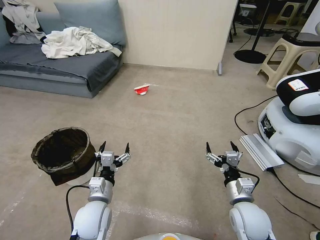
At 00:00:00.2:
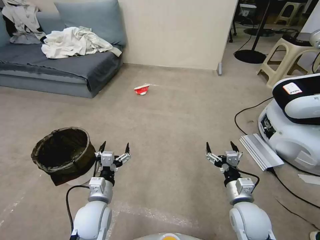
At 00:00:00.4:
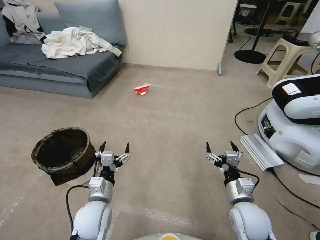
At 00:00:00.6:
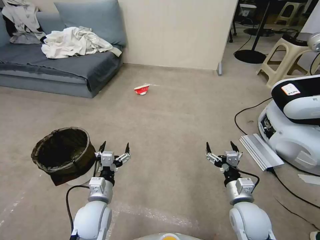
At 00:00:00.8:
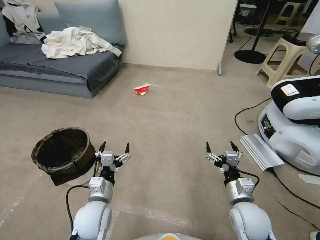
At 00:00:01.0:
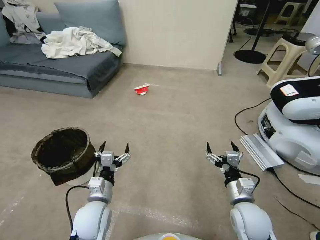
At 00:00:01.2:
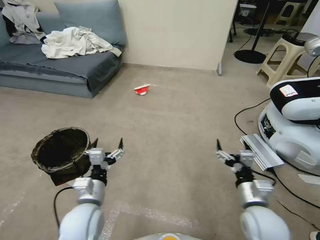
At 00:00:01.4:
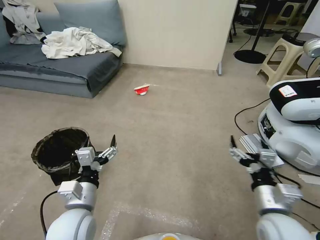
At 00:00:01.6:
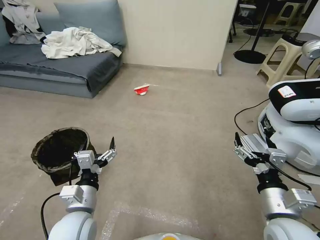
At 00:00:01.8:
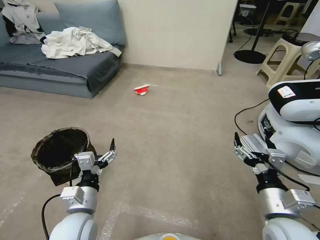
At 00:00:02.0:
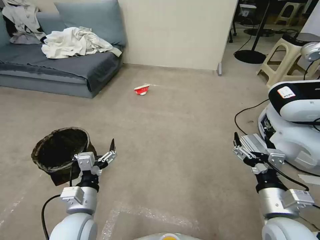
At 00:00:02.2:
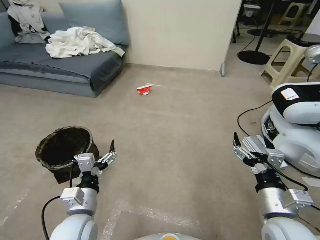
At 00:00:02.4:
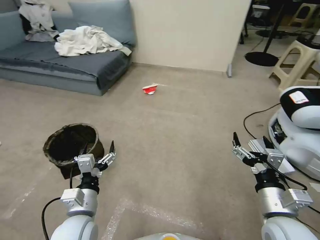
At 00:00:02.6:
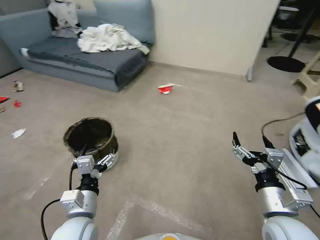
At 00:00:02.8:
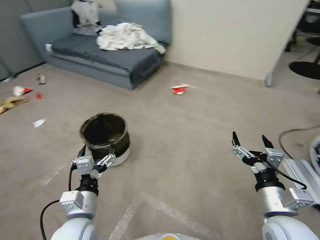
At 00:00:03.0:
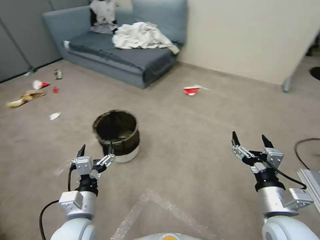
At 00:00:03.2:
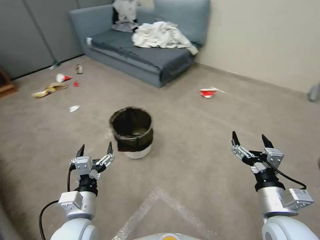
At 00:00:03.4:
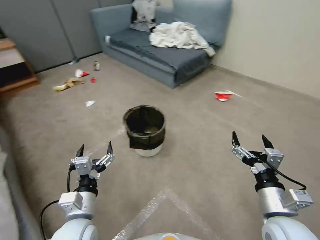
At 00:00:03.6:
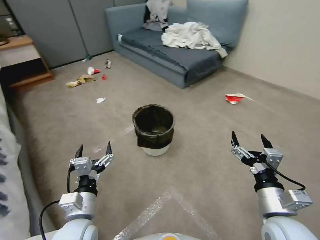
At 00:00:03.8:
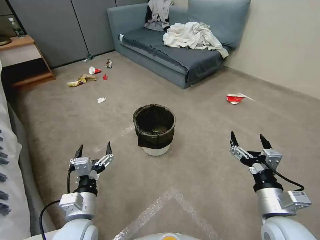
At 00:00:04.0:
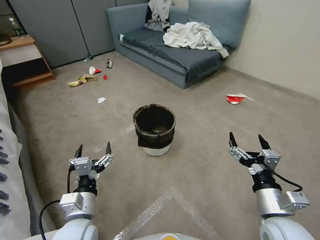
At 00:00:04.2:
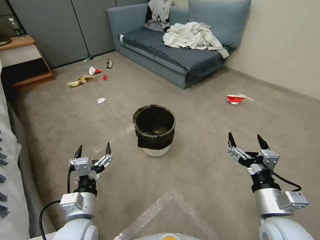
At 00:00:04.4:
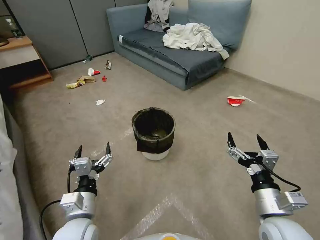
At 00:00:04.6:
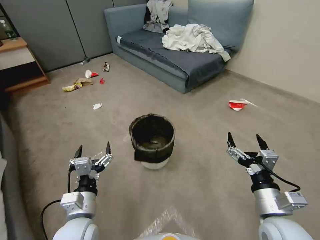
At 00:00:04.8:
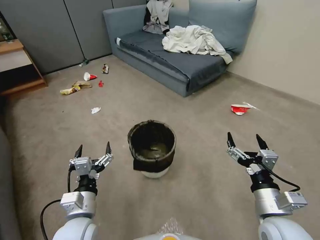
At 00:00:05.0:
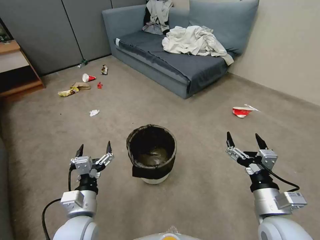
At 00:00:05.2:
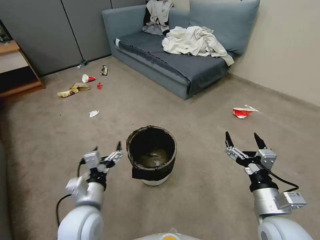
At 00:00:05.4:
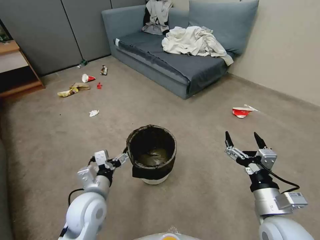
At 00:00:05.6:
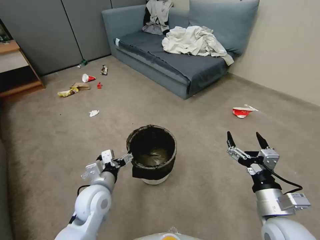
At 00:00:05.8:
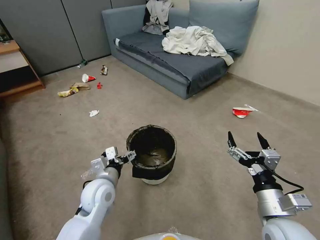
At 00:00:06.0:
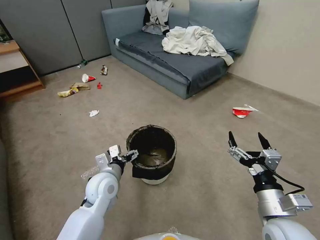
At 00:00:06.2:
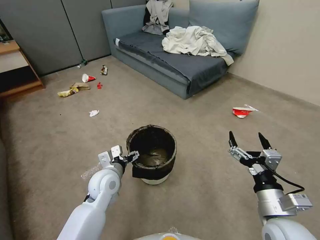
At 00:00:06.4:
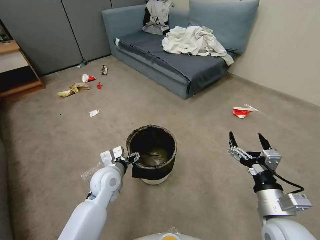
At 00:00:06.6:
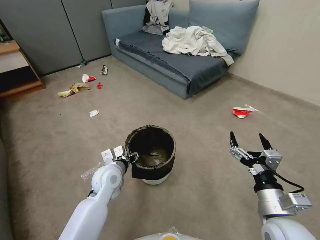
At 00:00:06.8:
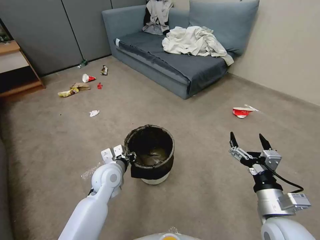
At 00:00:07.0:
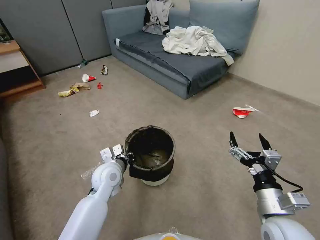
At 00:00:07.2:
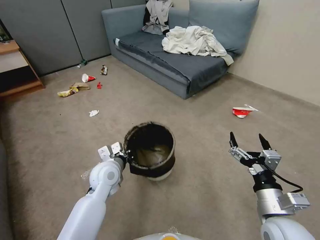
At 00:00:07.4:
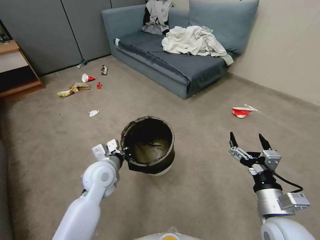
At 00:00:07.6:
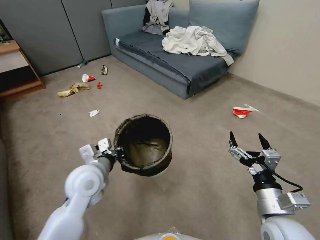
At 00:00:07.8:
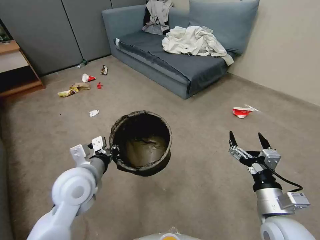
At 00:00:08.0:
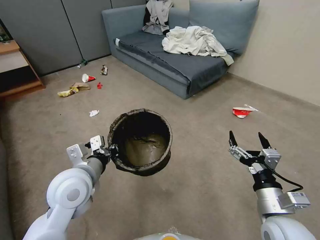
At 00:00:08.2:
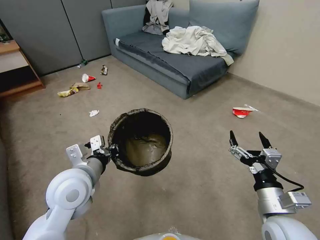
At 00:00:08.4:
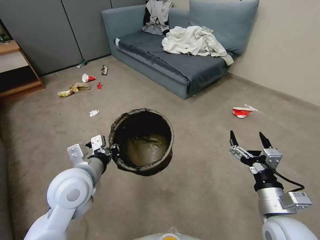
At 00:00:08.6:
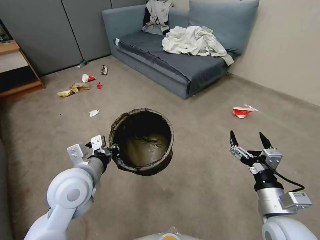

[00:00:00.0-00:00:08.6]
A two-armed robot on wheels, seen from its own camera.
Task of the whole recording: Pick up the trash can from the floor.
00:00:04.4 to 00:00:05.8: The left gripper heads forward, covering about 10 cm.
00:00:05.8 to 00:00:07.2: The left gripper changes place by approximately 5 cm, and closes up.
00:00:07.2 to 00:00:08.6: The left gripper moves upward and backward, some 15 cm.

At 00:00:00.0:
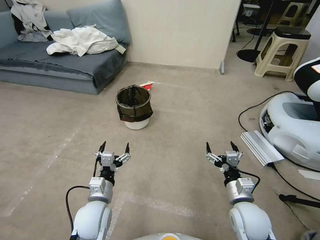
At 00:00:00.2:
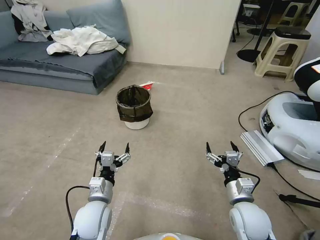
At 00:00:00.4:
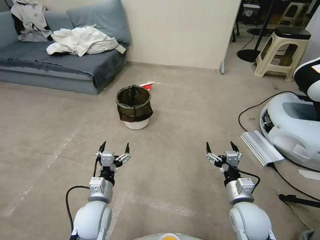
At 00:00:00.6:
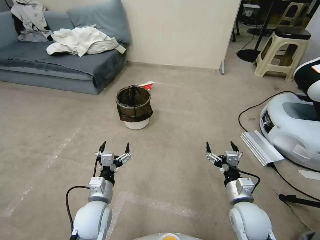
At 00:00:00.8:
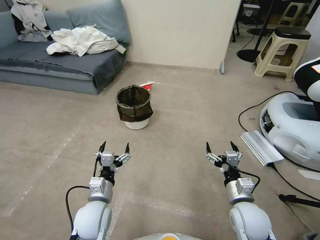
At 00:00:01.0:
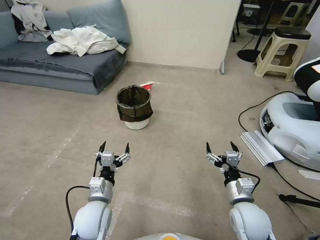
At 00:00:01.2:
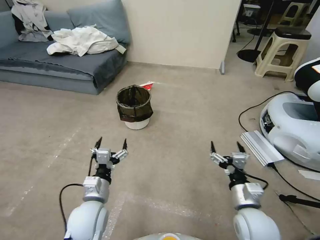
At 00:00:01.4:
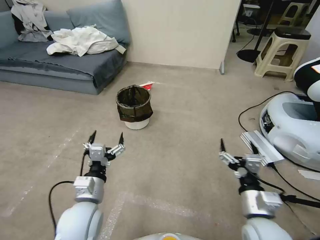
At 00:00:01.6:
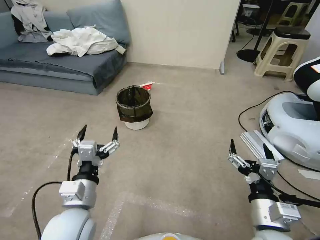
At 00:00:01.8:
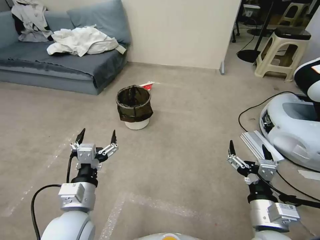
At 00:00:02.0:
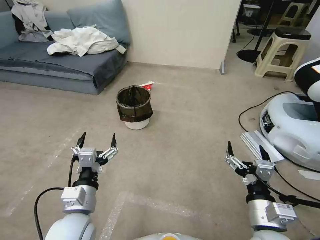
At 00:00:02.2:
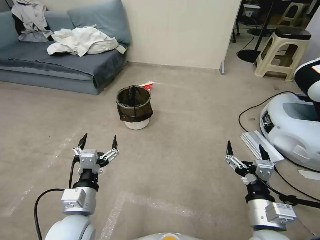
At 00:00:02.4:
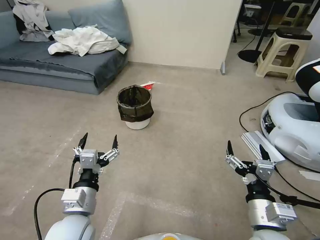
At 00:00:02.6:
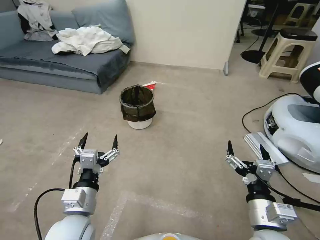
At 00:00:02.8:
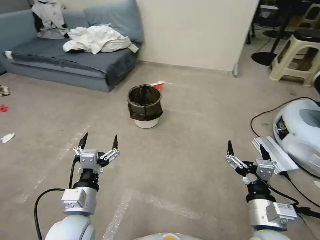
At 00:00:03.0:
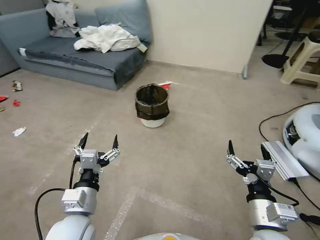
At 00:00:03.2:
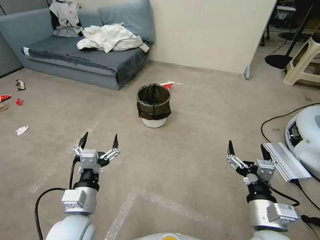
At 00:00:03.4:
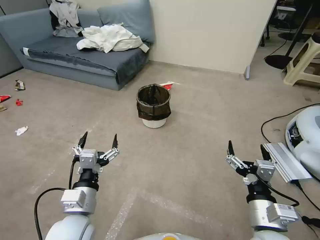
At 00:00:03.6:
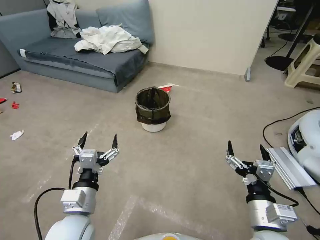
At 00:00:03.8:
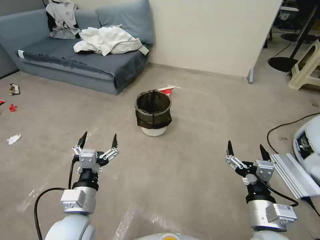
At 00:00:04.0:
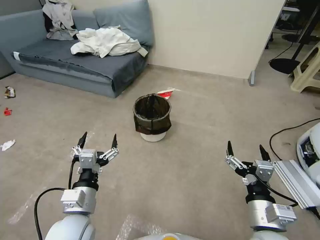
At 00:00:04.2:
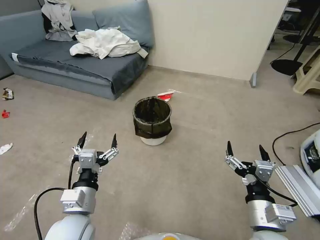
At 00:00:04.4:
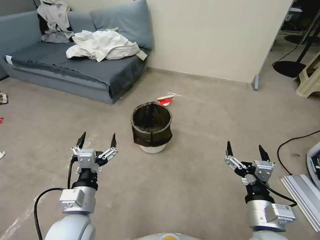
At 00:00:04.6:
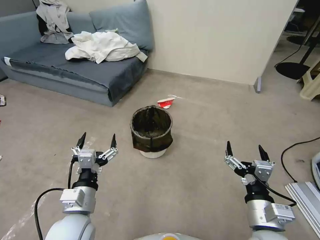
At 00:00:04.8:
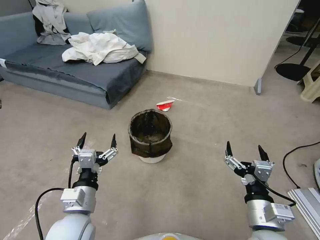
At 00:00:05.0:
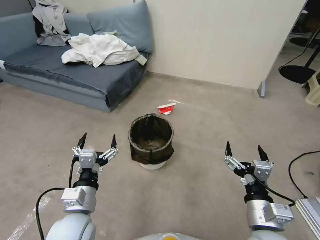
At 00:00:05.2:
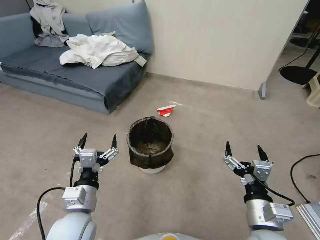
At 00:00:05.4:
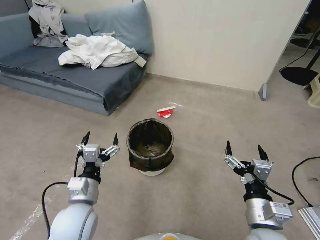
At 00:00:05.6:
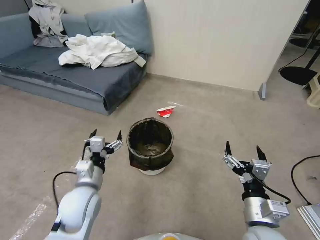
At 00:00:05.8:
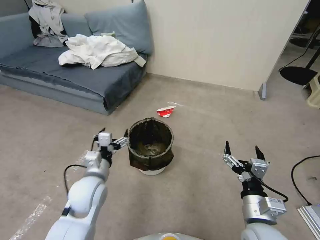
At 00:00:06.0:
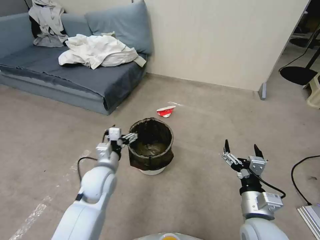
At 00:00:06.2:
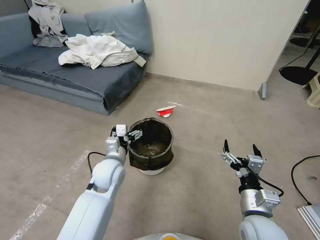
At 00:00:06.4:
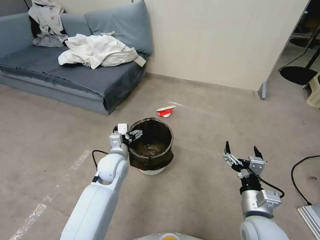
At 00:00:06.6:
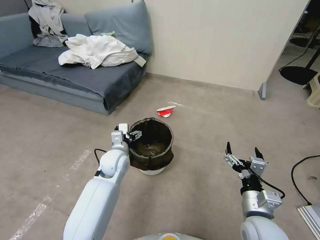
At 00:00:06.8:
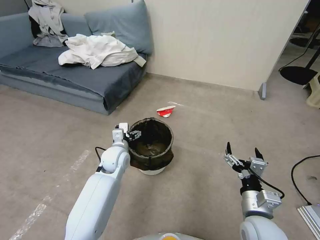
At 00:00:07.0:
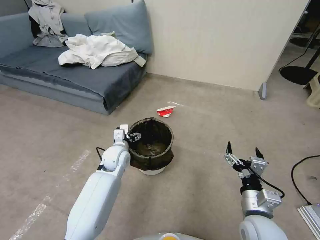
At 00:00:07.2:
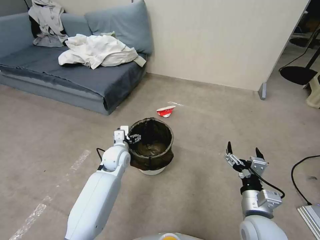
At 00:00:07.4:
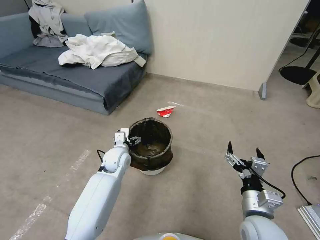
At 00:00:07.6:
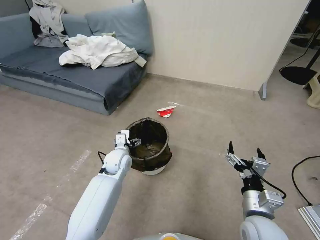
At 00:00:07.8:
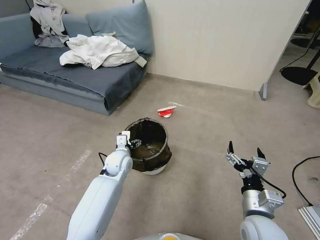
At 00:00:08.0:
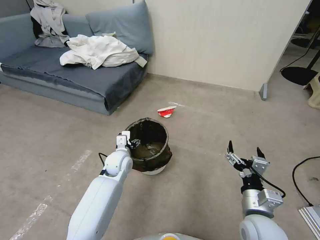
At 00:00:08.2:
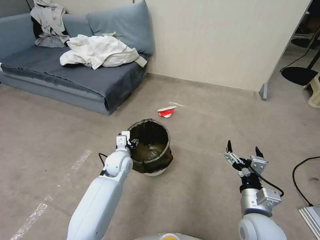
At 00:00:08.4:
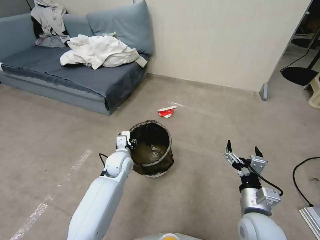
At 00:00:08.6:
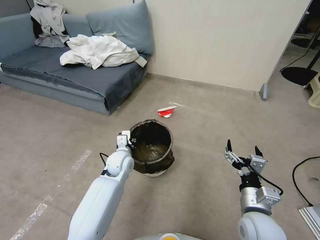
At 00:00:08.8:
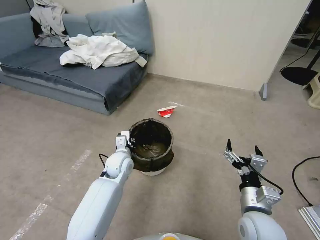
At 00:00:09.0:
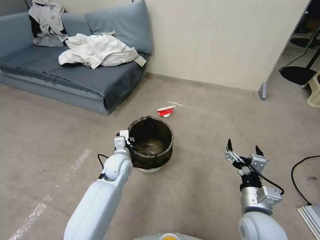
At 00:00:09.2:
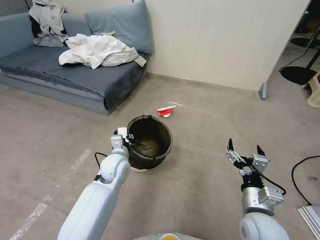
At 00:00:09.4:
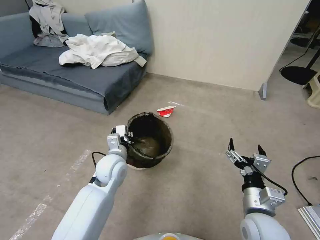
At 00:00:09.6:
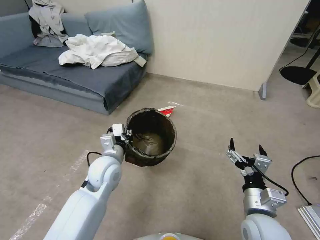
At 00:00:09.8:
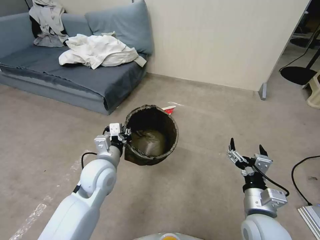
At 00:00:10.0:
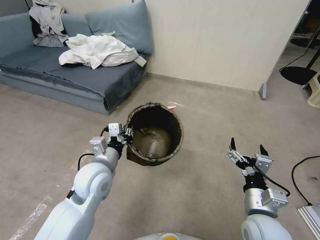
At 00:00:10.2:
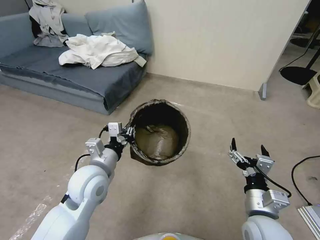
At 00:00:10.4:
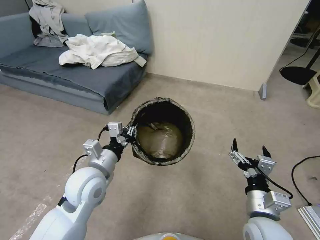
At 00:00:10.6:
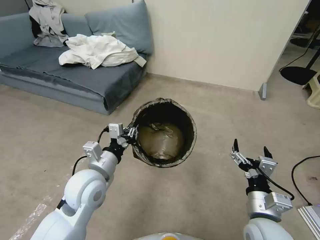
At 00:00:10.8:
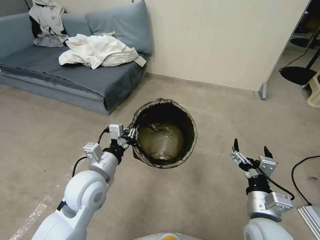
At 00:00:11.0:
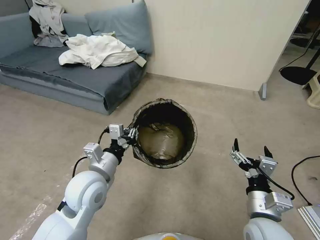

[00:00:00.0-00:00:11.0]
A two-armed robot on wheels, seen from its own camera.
Task of the whole recording: Pick up the trash can from the floor.
00:00:04.8 to 00:00:06.2: The left gripper moves forward, some 15 cm.
00:00:06.2 to 00:00:07.8: The left gripper moves forward and downward, roughly 10 cm.
00:00:07.8 to 00:00:09.4: The left gripper shifts some 10 cm upward and backward, and closes its fingers.
00:00:09.4 to 00:00:11.0: The left gripper is displaced backward and upward by about 10 cm.
